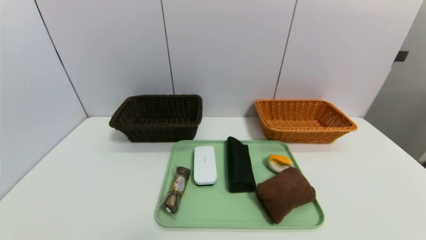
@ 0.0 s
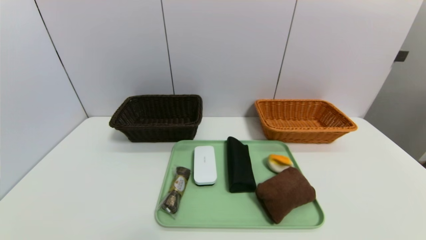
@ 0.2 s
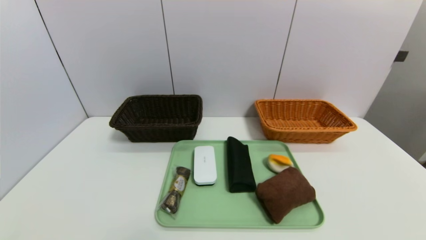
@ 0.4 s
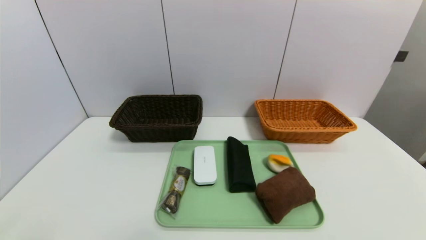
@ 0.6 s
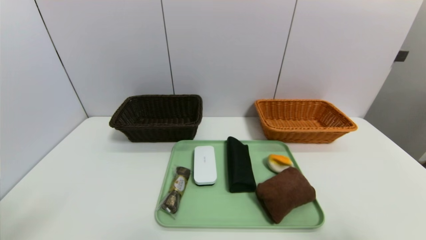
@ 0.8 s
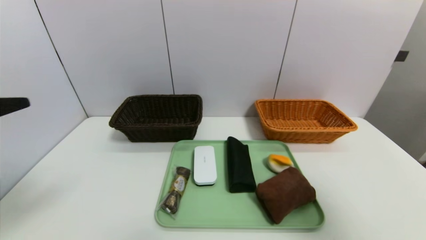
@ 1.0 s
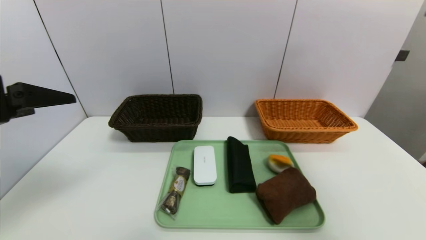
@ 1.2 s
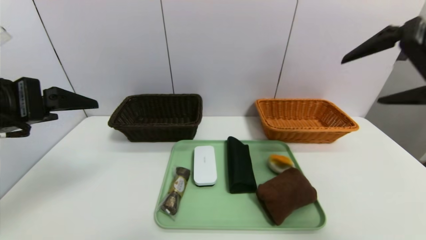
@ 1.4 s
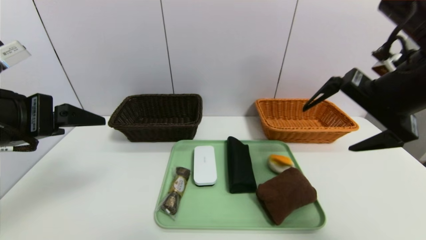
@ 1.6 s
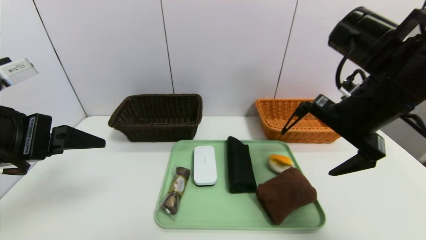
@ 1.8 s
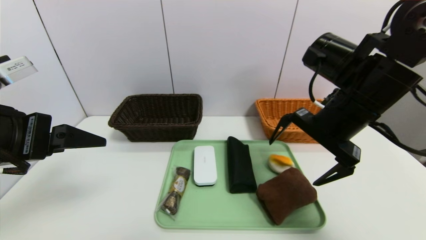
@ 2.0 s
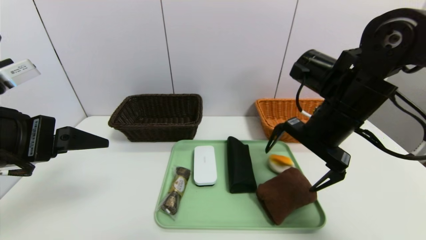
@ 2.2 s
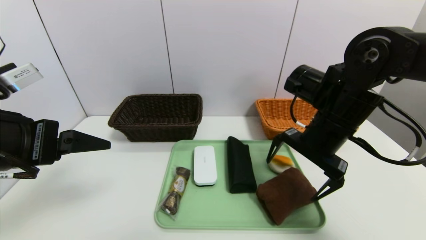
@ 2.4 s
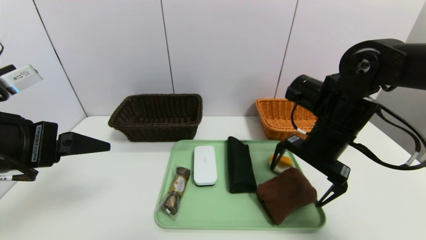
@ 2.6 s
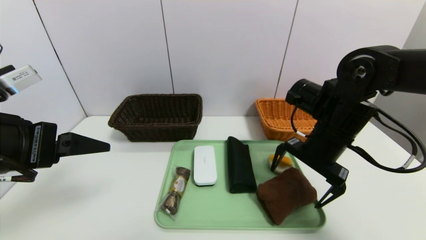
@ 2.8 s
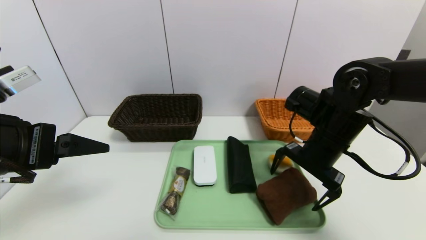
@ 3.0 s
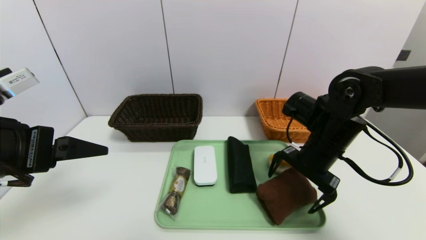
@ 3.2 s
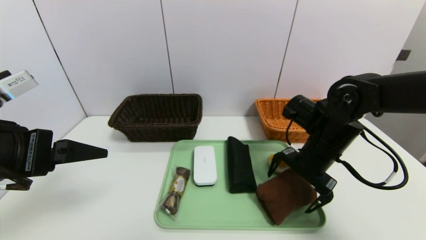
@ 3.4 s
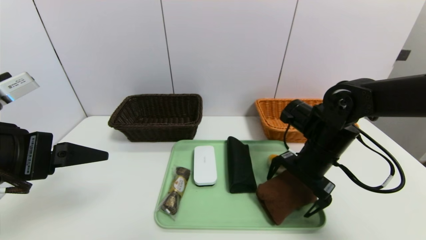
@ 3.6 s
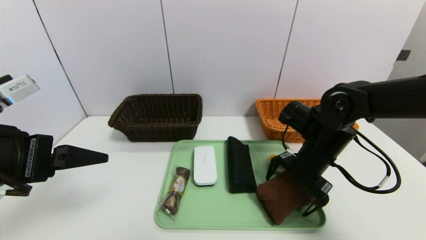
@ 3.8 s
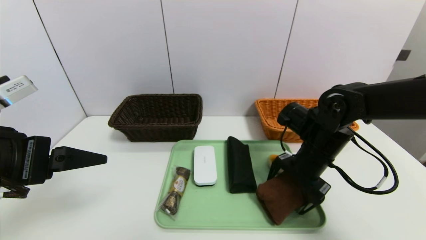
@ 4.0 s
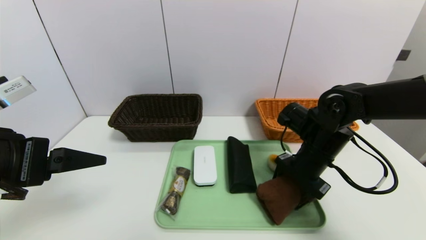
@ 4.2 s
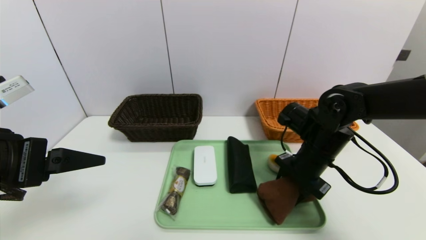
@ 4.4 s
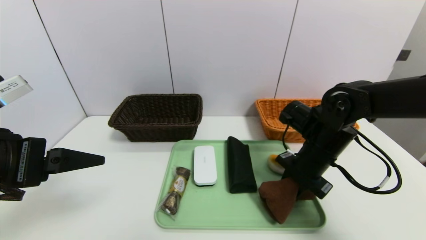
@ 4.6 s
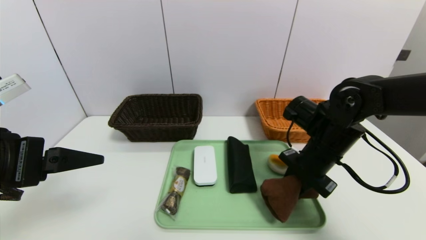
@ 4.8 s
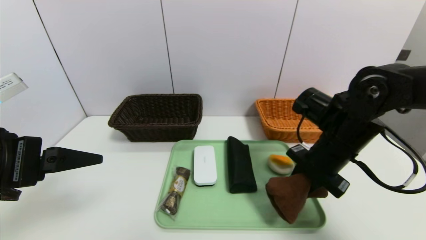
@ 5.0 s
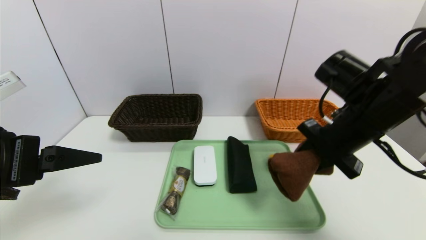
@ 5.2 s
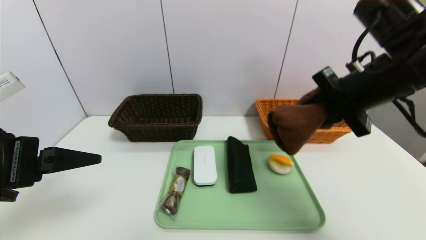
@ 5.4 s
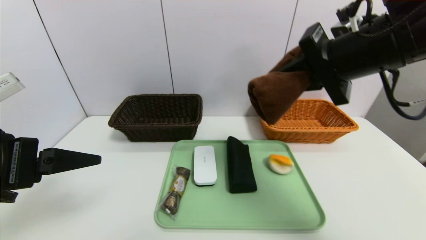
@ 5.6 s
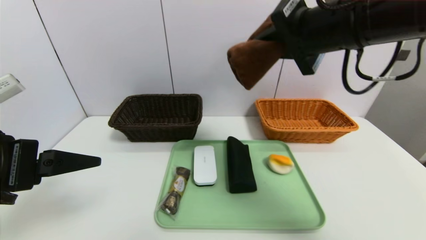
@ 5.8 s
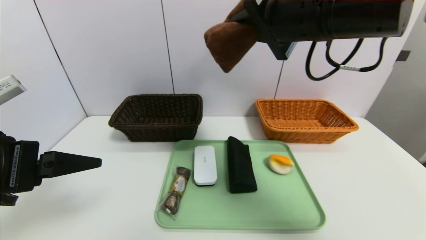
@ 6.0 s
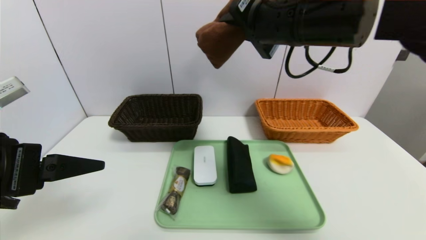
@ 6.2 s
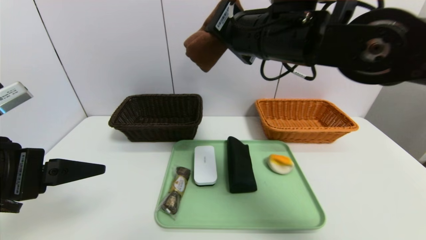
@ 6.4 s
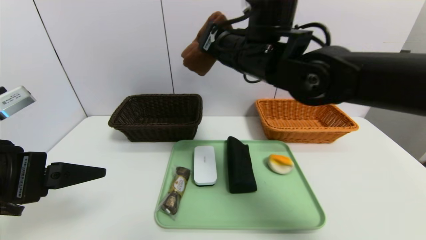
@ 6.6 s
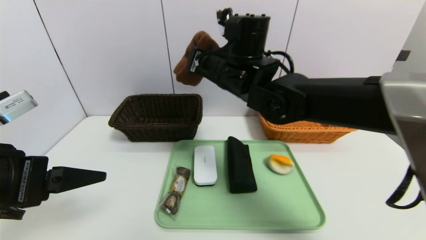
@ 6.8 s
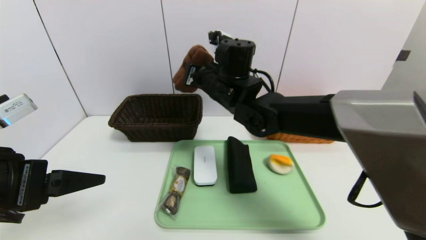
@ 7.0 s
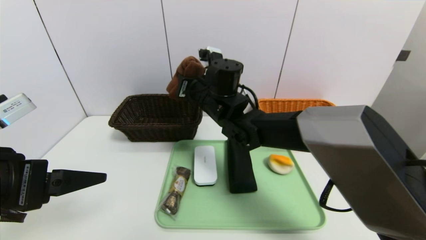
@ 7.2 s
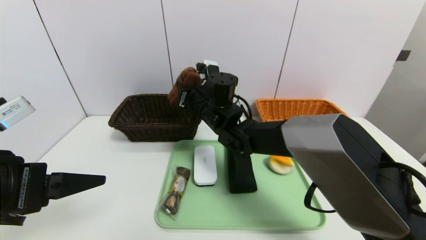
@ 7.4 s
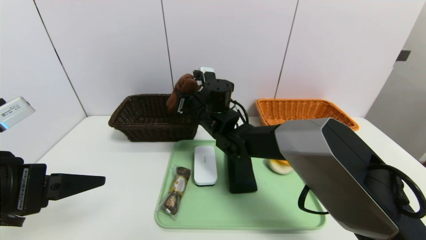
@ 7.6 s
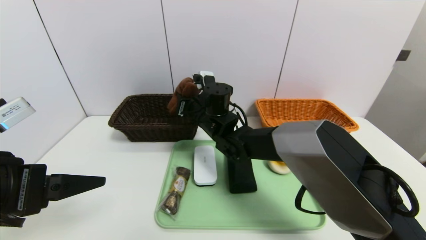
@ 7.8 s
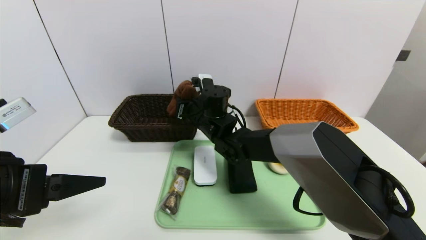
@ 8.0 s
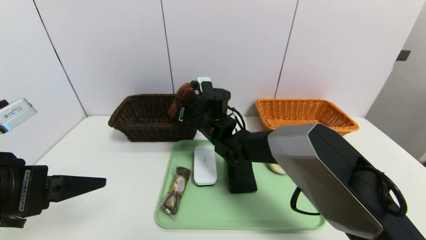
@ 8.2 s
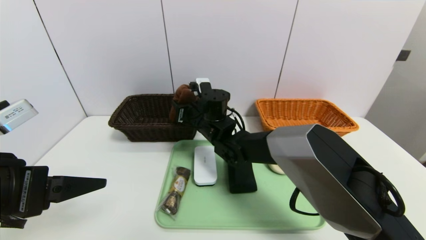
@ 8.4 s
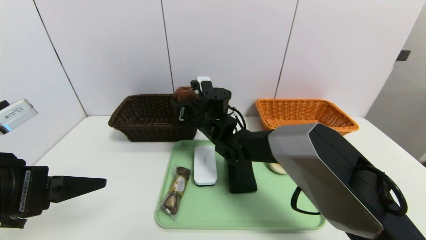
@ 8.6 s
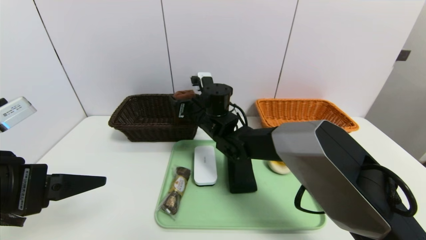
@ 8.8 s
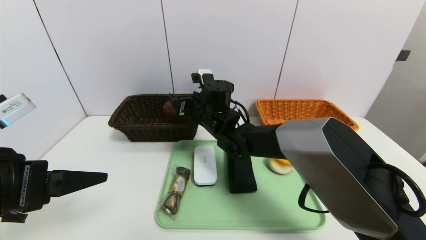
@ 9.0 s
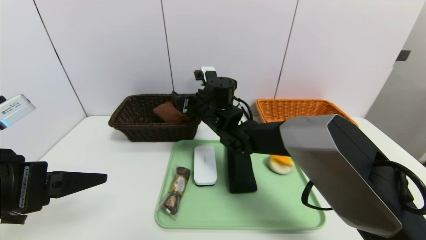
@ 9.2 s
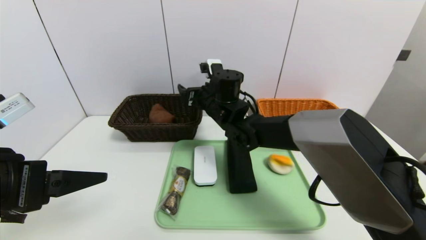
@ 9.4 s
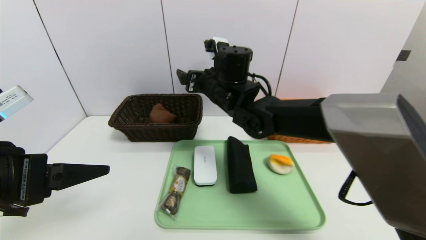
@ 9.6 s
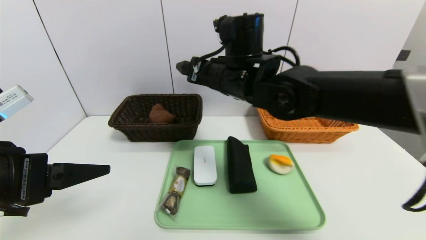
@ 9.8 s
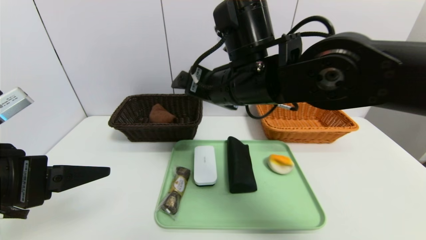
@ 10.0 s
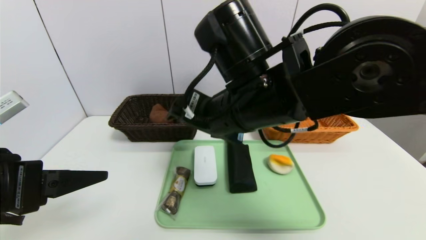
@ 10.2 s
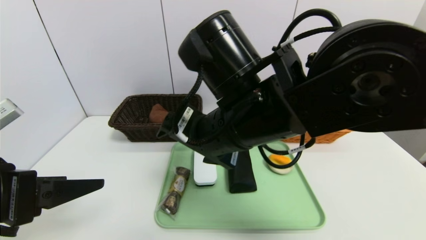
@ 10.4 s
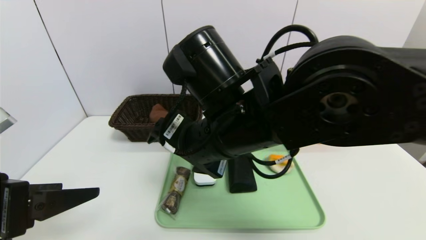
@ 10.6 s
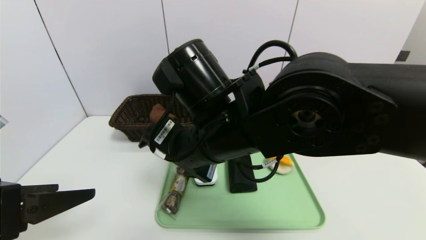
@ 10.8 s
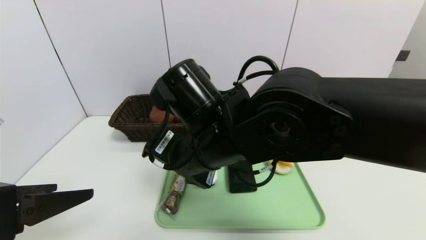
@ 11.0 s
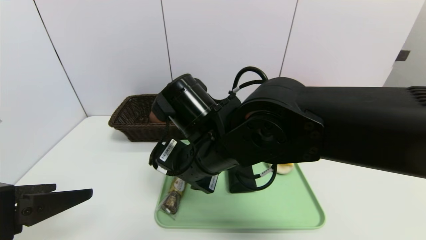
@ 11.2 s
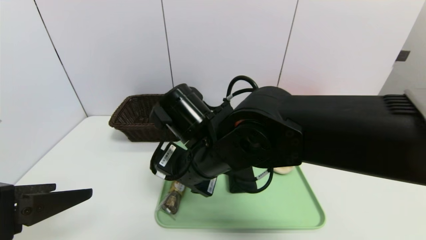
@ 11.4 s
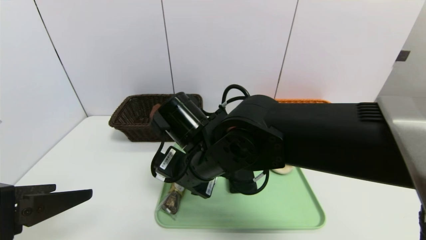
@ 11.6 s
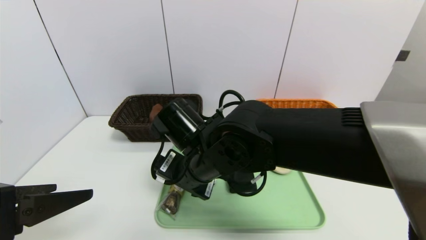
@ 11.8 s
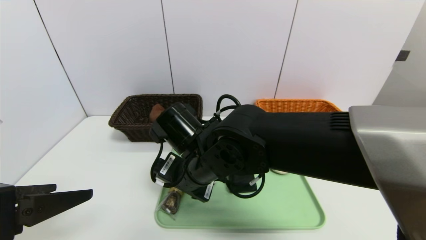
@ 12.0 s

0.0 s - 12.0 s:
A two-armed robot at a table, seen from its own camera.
Task of the whole recording: place the food in the right basket with the right gripper, and place the non food items in the left basket with the left gripper.
Step, 0.0 s - 9.4 s: Grasp the brown towel and put it in the left basket.
0.0 s - 1.6 s: The right gripper moves upward, forward and to the left, some 35 cm. Meanwhile the left gripper is displaced upward and forward by approximately 30 cm.
1.6 s - 3.0 s: The right gripper heads downward and forward, covering roughly 15 cm.
3.0 s - 4.4 s: The right gripper closes its fingers.
4.4 s - 6.0 s: The right gripper moves upward, roughly 25 cm.
6.0 s - 7.6 s: The right gripper travels downward, to the left and forward by about 30 cm.
7.6 s - 9.0 s: The right gripper opens up.
9.0 s - 10.4 s: The right gripper travels backward and upward by some 20 cm.
10.4 s - 12.0 s: The right gripper is displaced downward by roughly 10 cm.

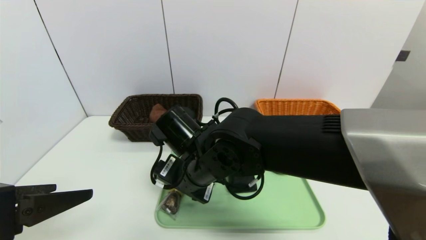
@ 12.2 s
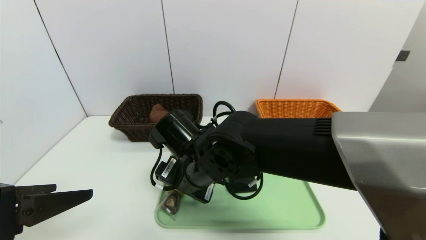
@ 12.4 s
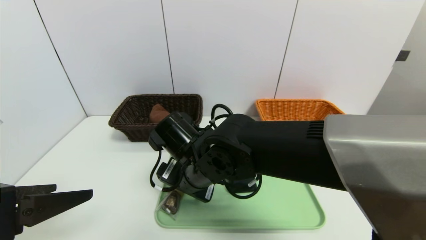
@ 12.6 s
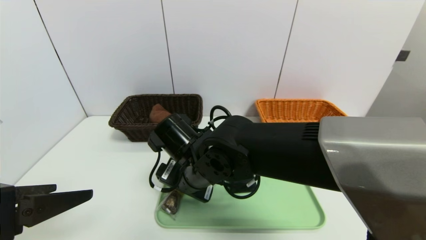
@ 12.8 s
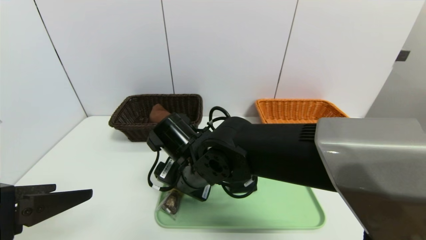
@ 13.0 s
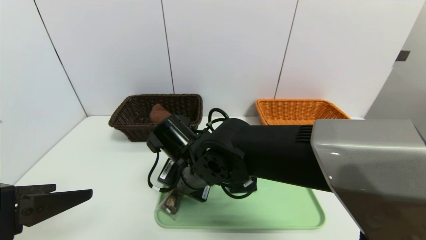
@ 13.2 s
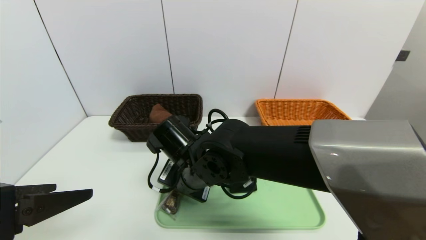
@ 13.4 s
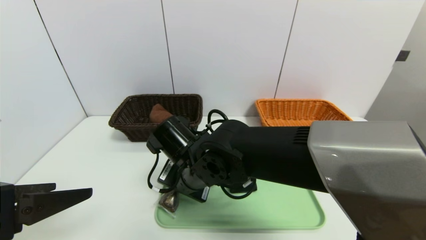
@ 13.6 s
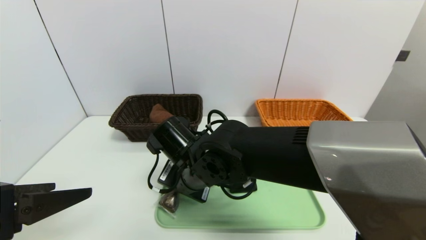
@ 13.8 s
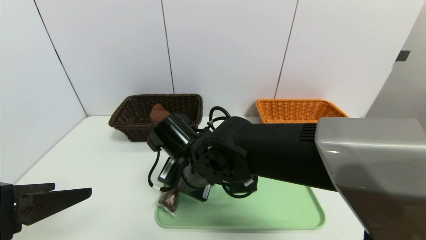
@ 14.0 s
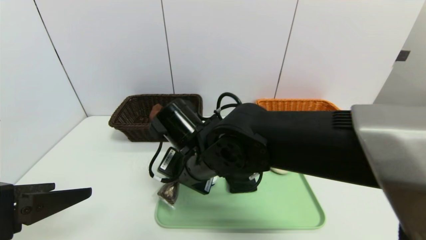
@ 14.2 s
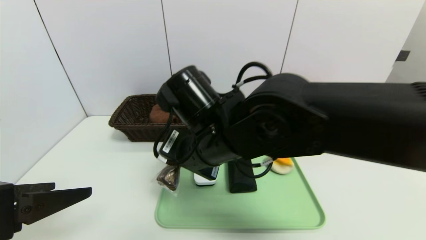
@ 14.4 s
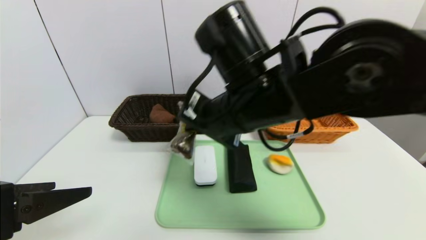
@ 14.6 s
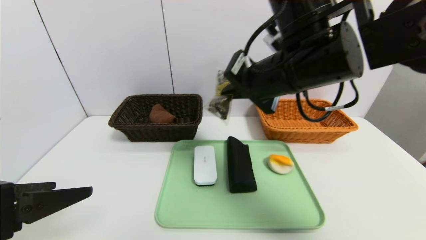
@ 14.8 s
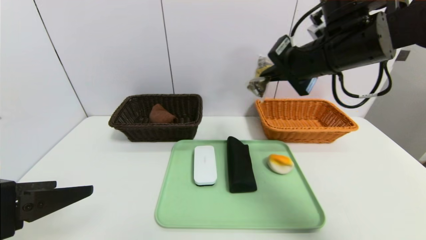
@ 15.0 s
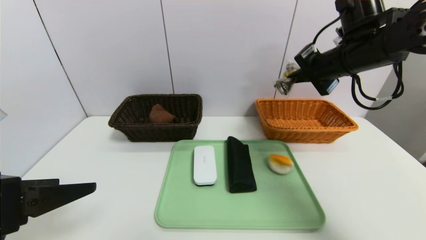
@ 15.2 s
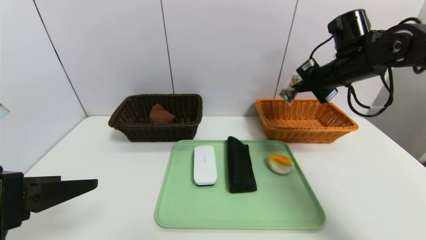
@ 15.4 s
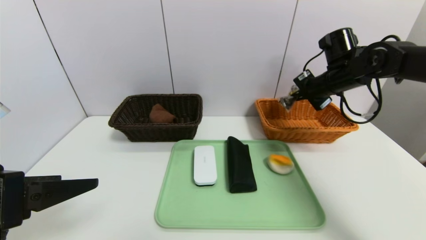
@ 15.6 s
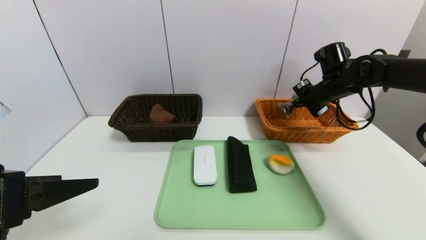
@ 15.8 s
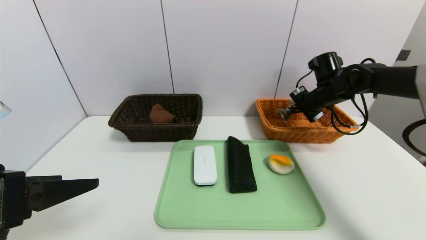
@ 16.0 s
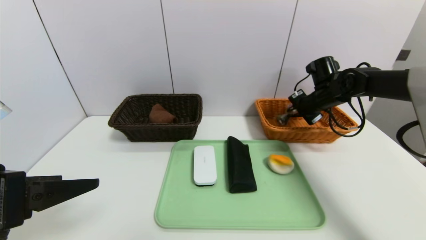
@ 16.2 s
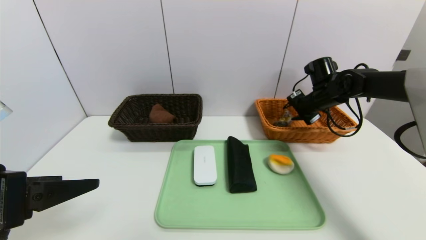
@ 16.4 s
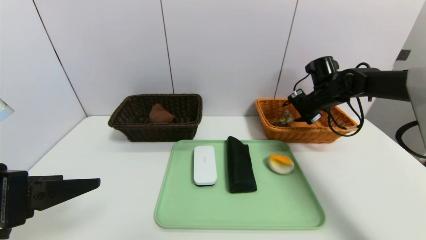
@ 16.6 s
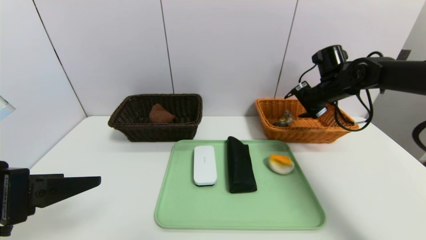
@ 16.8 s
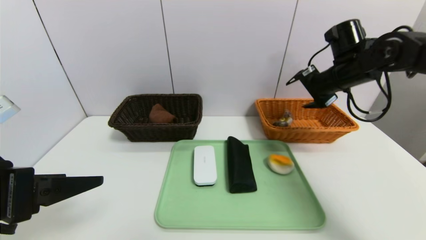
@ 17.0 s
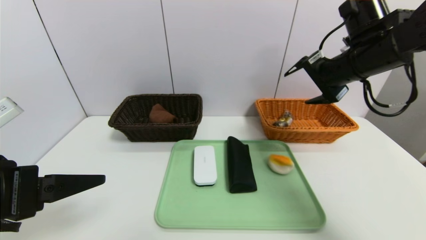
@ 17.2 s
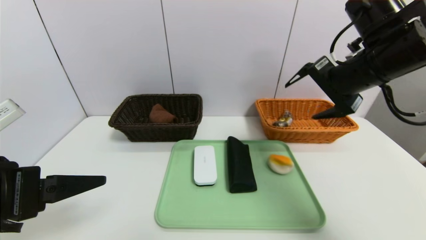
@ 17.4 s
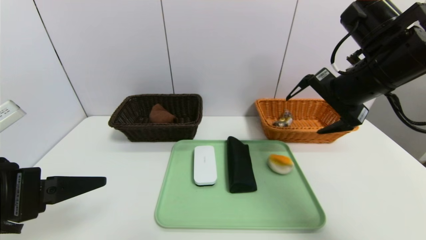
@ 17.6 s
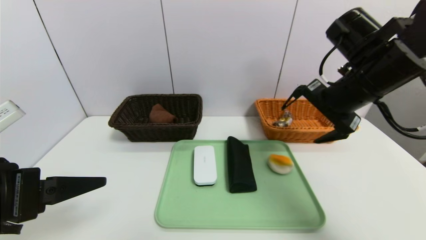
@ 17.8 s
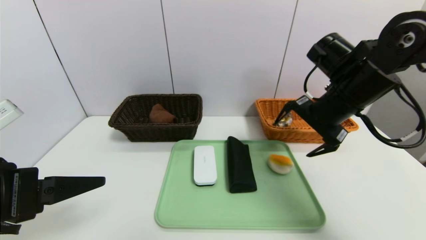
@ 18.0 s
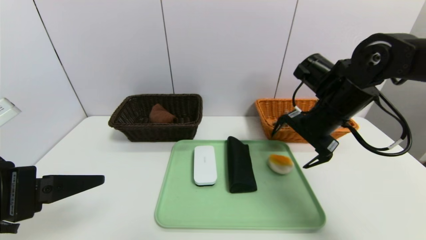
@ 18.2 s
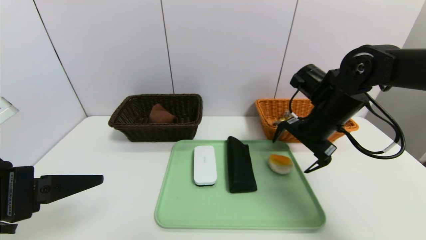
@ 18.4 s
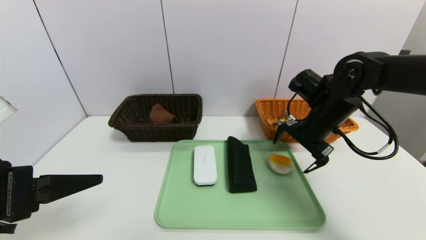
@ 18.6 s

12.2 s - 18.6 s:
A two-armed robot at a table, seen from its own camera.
Task of the whole recording: place the food in the right basket with the right gripper, and place the non food items in the left basket with the left gripper.
Step, 12.2 s - 16.8 s: Grasp the chocolate and put it in the right basket.
12.2 s - 13.8 s: The right gripper closes its fingers.
13.8 s - 15.4 s: The right gripper goes some 35 cm to the right, forward and upward.
15.4 s - 17.0 s: The right gripper travels downward and back again, approximately 10 cm each way, and opens.
17.0 s - 18.6 s: The right gripper moves downward, roughly 5 cm.
